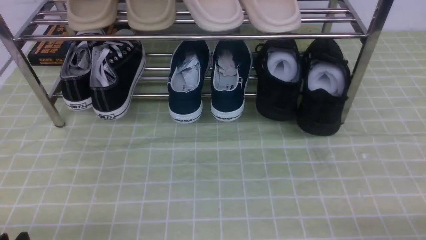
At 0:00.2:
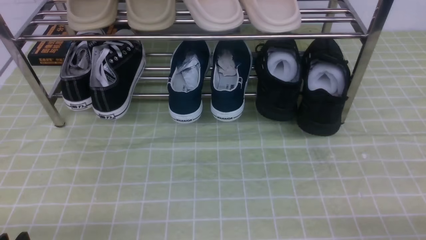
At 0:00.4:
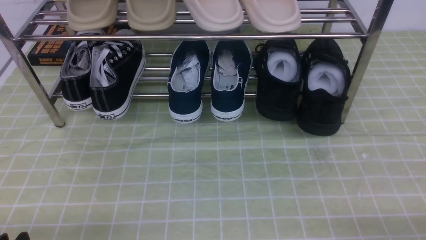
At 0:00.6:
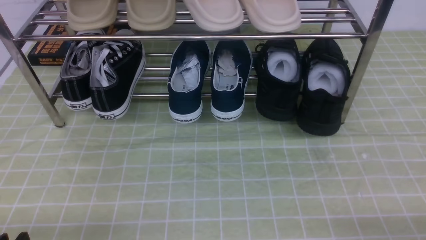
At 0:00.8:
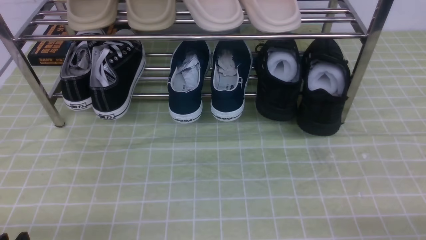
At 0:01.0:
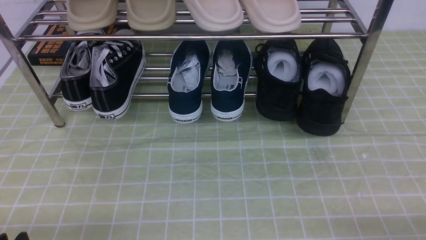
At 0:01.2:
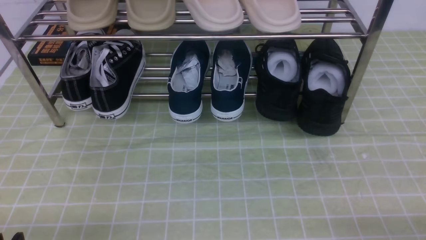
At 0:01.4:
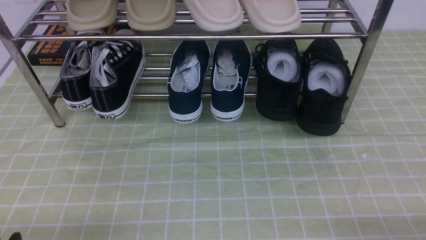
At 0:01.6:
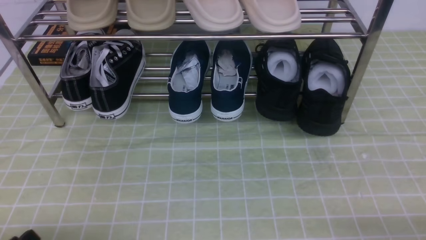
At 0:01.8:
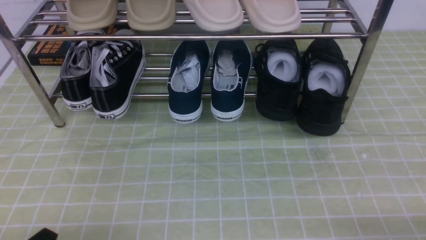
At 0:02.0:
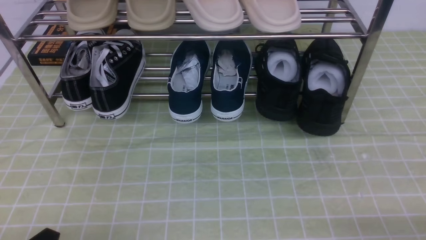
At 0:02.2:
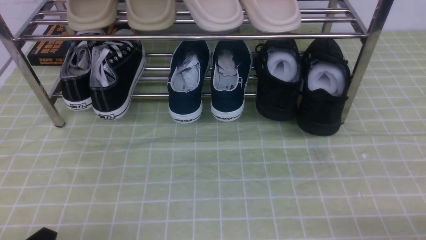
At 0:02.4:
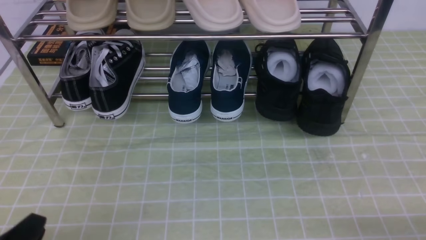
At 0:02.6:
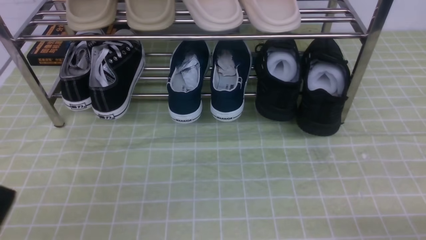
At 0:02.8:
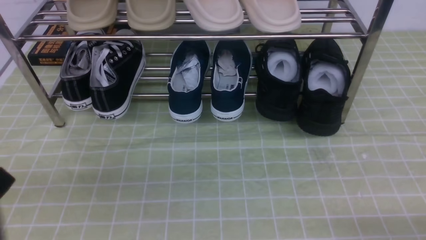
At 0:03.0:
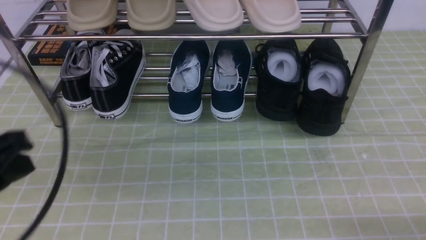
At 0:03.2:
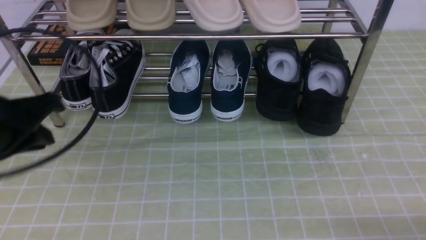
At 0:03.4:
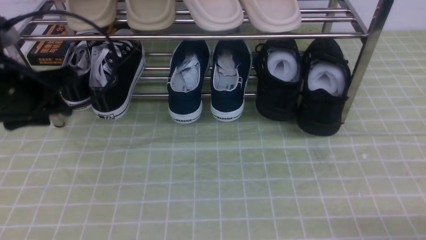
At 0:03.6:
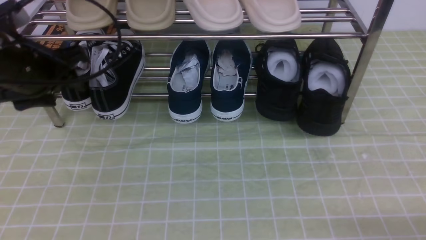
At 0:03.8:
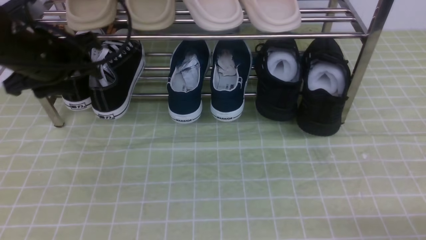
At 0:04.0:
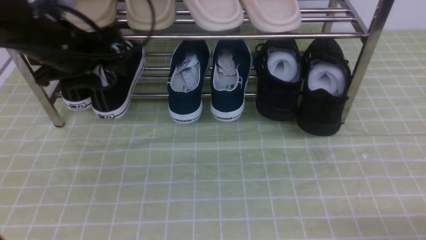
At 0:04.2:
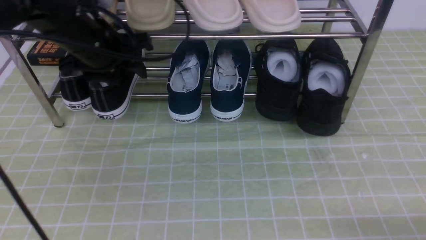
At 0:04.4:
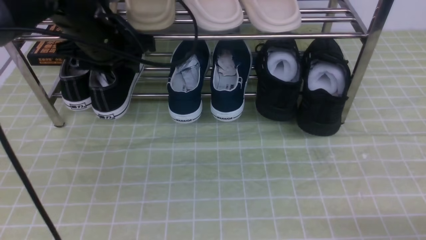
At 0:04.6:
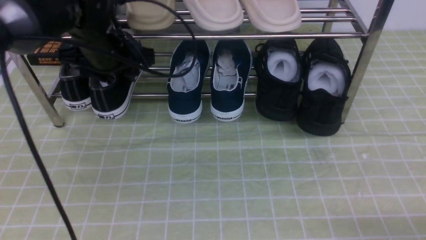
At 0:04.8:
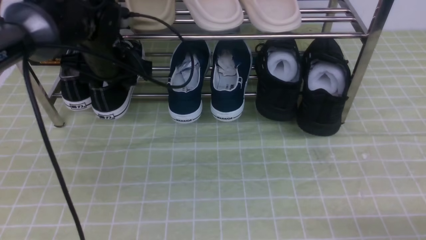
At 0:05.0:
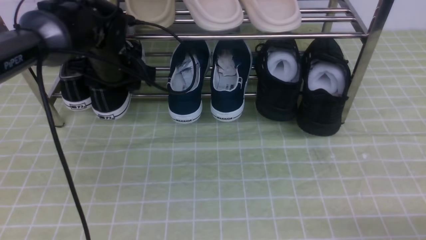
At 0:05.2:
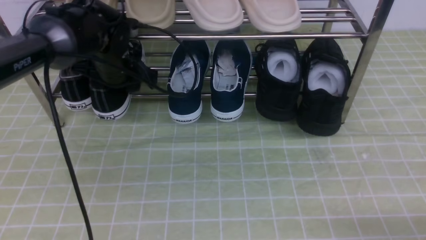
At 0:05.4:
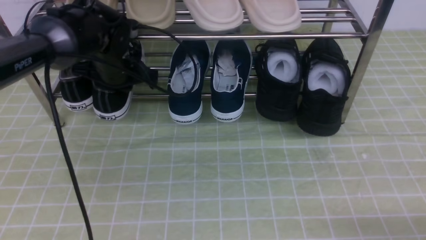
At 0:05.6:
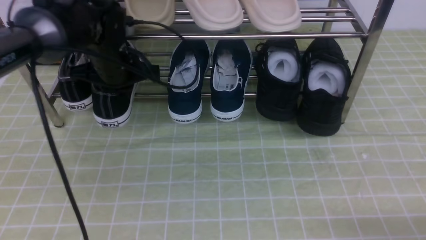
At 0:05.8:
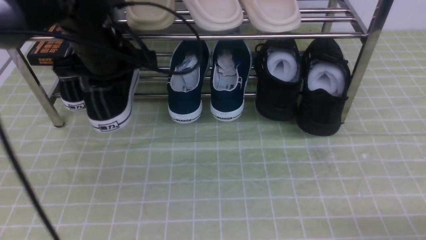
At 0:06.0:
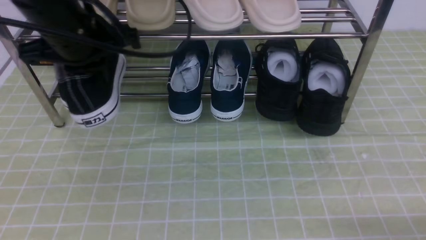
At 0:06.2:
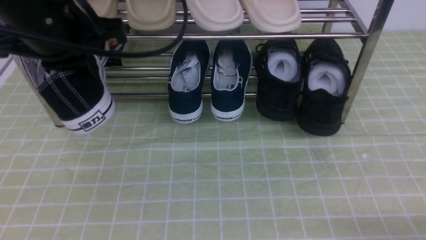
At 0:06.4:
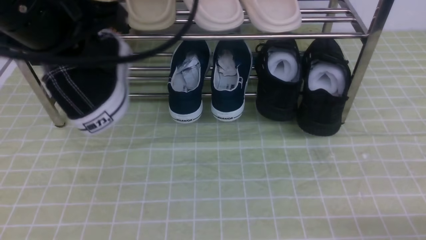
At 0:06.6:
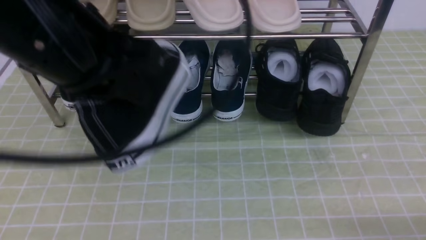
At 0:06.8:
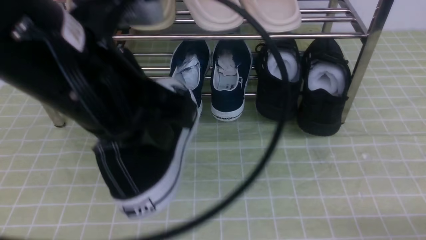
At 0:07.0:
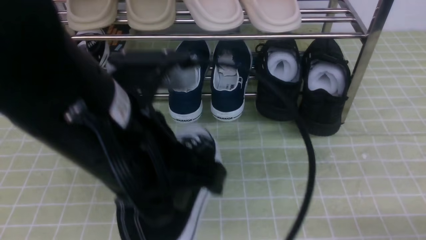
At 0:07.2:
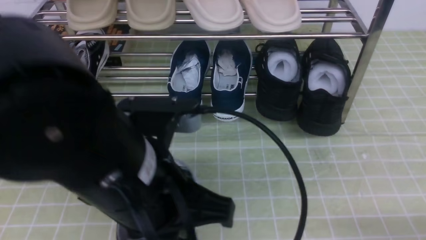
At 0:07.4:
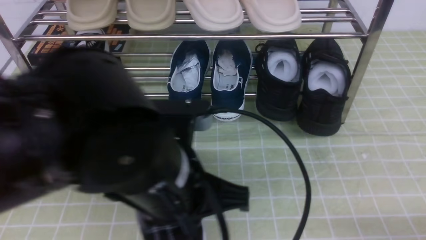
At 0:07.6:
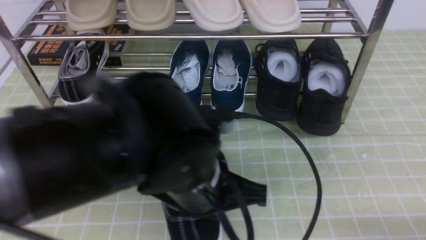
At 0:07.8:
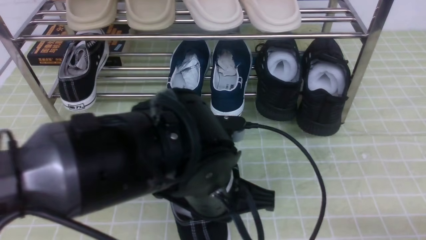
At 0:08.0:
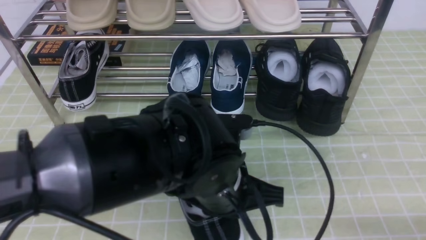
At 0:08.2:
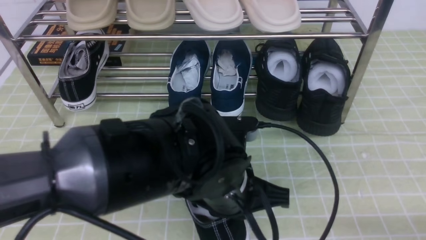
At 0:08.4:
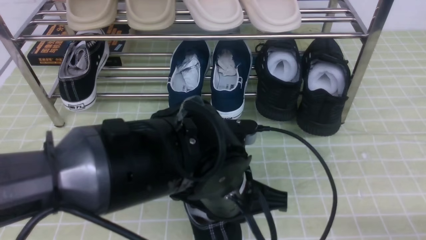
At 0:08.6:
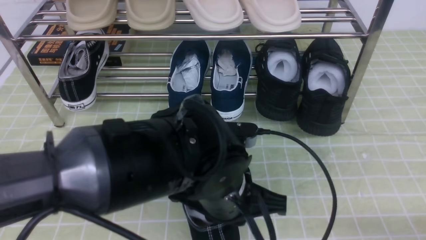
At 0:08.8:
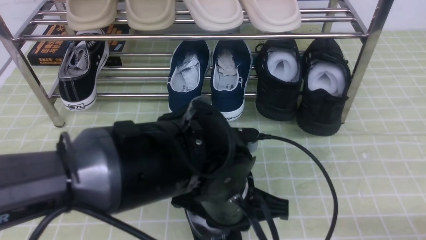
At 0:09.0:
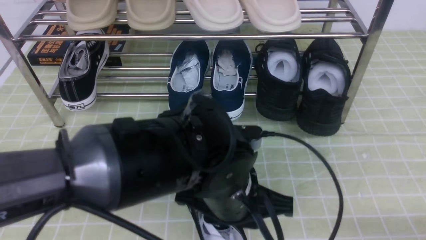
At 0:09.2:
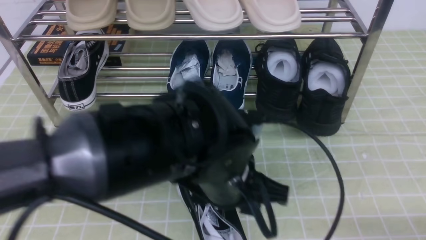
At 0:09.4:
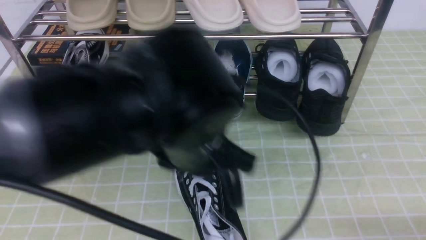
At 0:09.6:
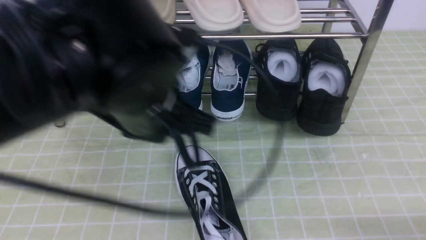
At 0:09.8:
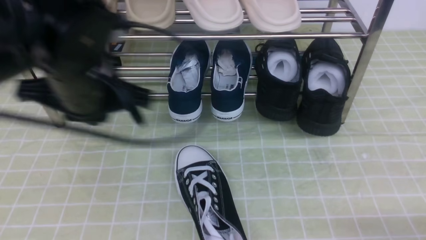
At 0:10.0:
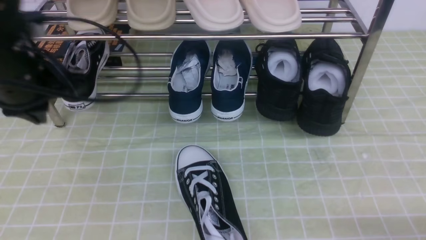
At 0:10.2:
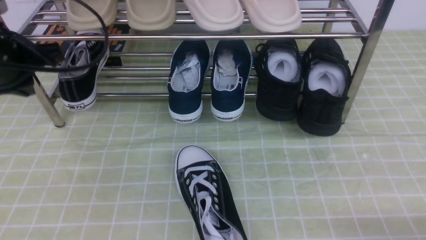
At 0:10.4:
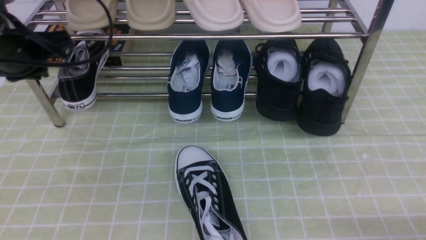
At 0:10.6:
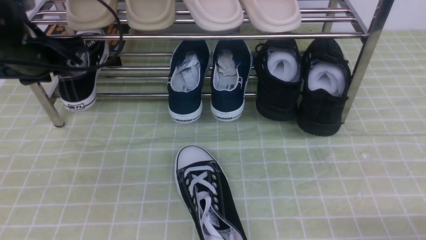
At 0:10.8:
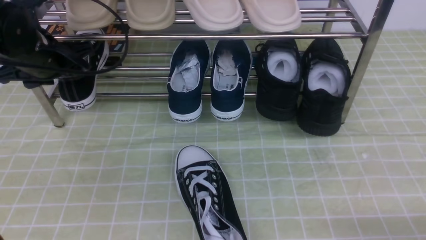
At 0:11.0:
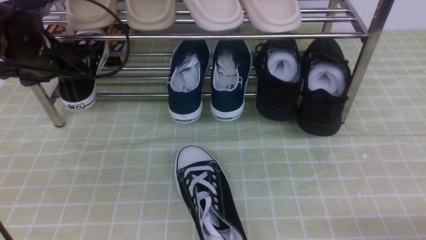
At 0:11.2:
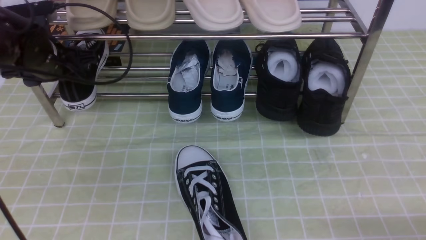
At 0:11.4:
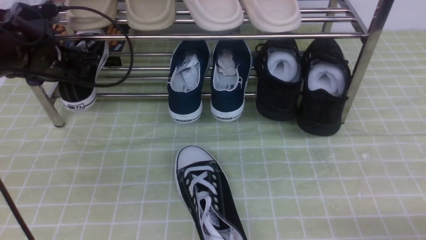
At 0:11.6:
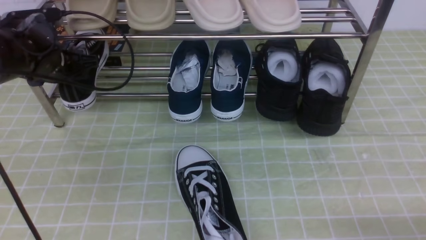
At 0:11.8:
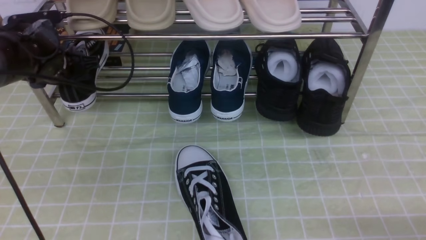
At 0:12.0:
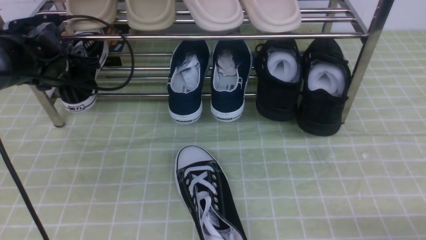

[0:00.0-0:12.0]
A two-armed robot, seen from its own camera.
Step, 0:00.0 to 0:05.8: use the left arm to clamp a shoe on the left side of the shoe rack.
Step, 0:06.0 to 0:09.2: Use your left arm to remove the clamped shoe from the shoe rack and put it down.
0:01.6 to 0:03.0: The left gripper goes about 20 cm upward and forward, and closes.
0:03.0 to 0:04.4: The left gripper moves forward, approximately 25 cm, and opens up.
0:04.4 to 0:06.0: The left gripper is displaced backward and upward by about 10 cm, and closes up.
0:06.0 to 0:07.6: The left gripper shifts approximately 20 cm to the right, backward and downward.
0:07.6 to 0:09.0: The left gripper opens up.
0:09.0 to 0:10.4: The left gripper goes about 30 cm to the left and forward.
0:10.4 to 0:12.0: The left gripper moves downward and forward, roughly 15 cm, and opens its fingers.

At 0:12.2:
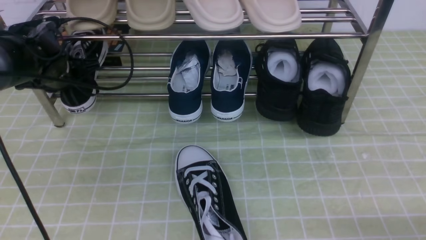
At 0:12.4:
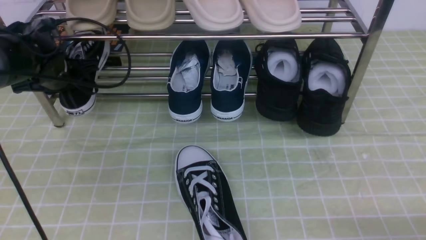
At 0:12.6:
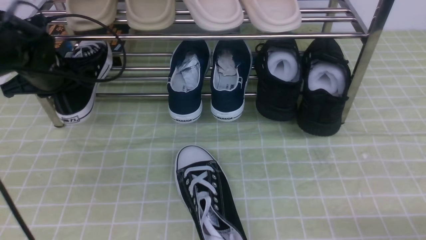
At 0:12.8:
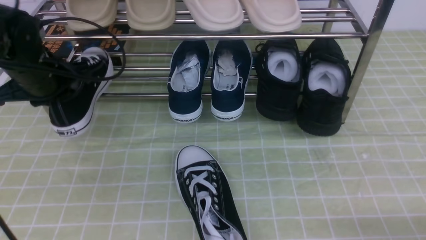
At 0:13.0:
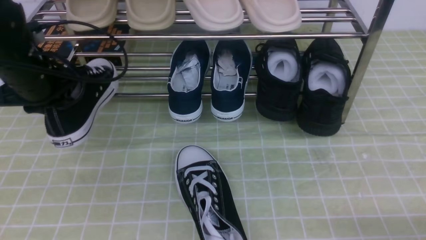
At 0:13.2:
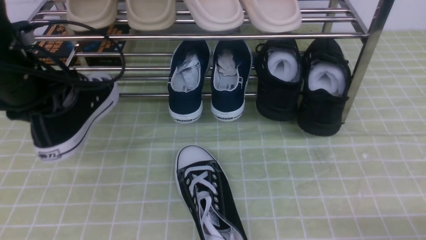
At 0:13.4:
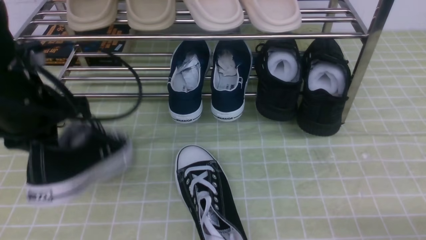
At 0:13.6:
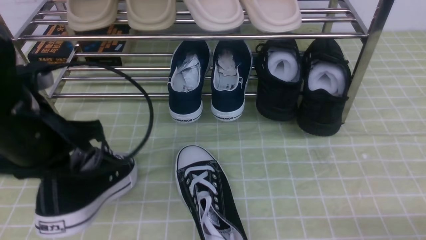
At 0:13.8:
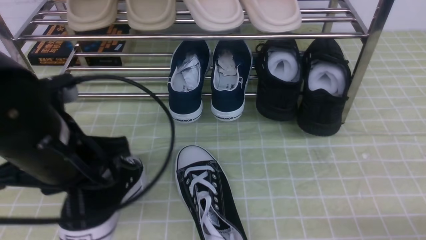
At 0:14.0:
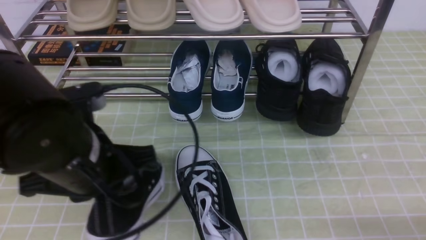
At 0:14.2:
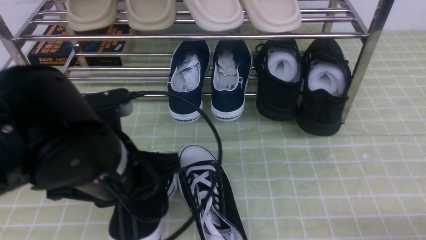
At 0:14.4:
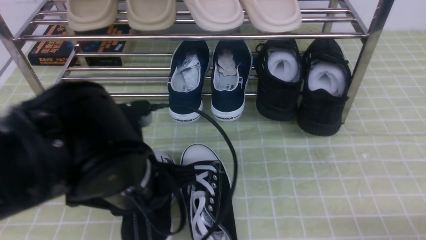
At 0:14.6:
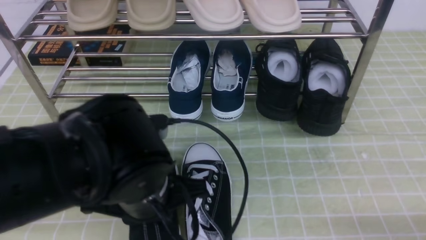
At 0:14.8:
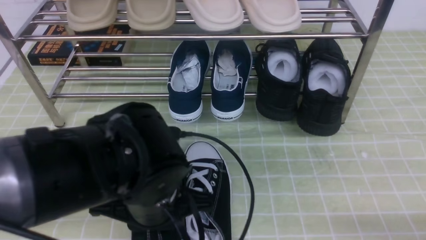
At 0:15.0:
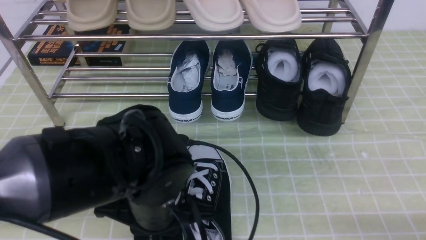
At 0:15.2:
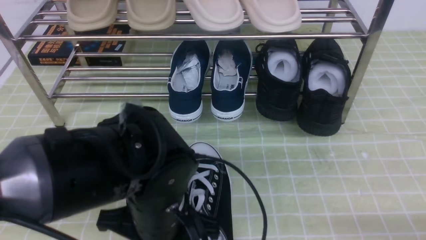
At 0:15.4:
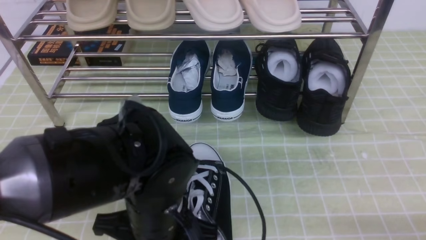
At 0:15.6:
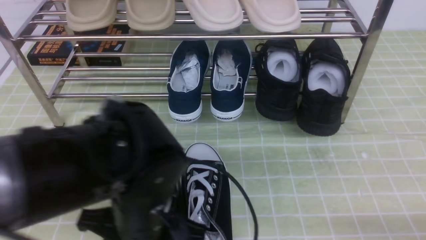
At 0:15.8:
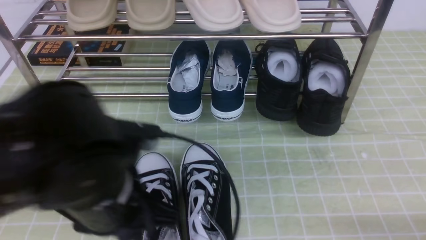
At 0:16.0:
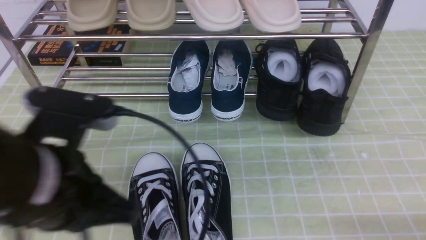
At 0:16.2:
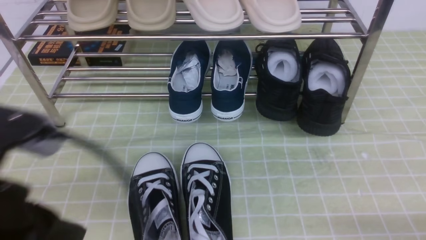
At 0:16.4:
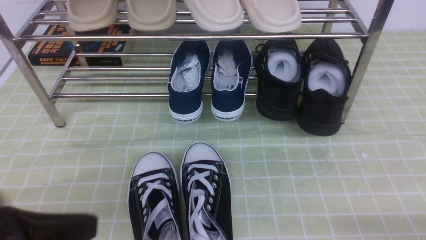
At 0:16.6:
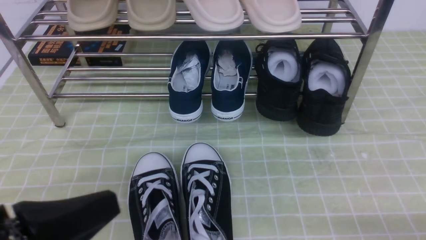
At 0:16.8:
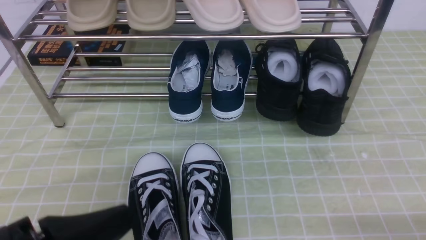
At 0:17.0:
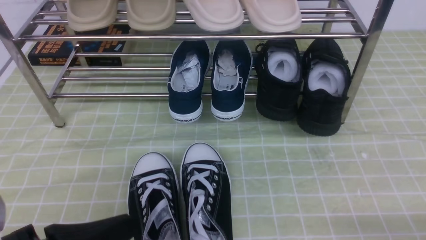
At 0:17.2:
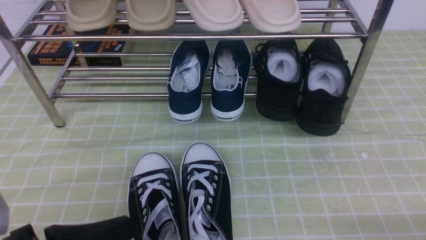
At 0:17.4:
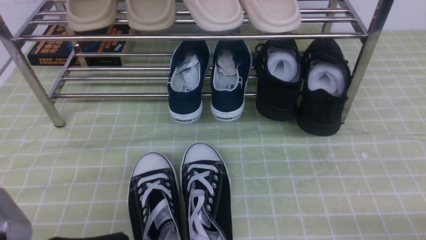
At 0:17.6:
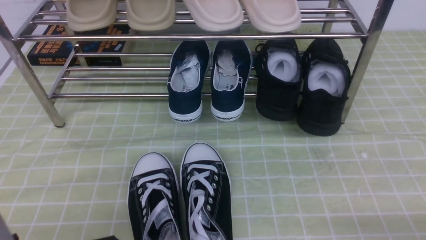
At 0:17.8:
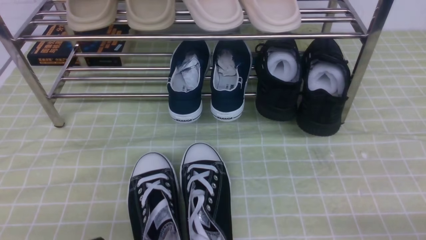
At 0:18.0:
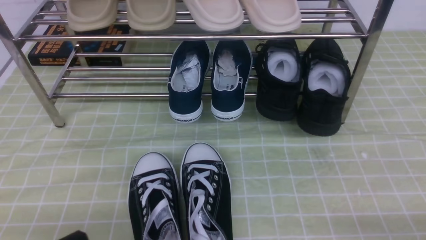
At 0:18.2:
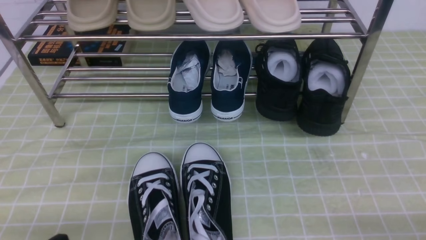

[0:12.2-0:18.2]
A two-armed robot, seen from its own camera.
Step, 0:12.6 to 0:16.0: Use your left arm to remove the clamped shoe from the shoe rack and put it down.
0:12.2 to 0:13.8: The left gripper shifts about 25 cm backward and to the right.
0:13.8 to 0:15.2: The left gripper travels to the right and downward by roughly 10 cm.
0:15.2 to 0:16.6: The left gripper is displaced to the left, backward and upward by about 20 cm, and closes up.
0:16.6 to 0:18.2: The left gripper travels downward by some 10 cm.
